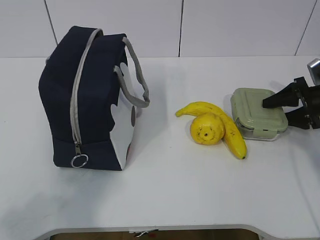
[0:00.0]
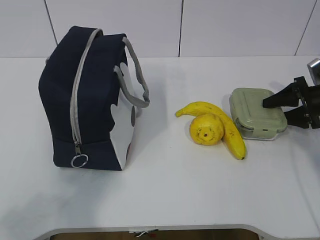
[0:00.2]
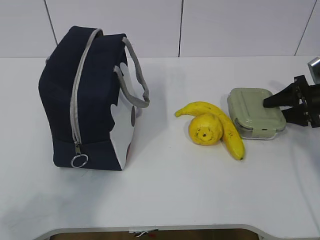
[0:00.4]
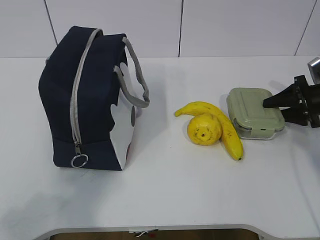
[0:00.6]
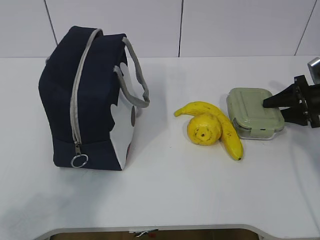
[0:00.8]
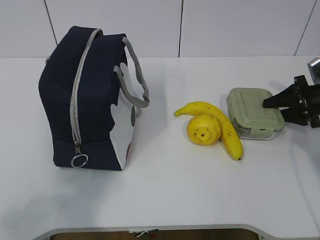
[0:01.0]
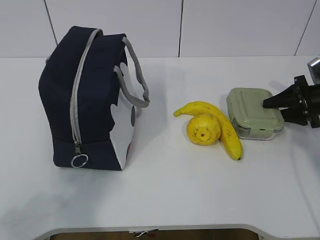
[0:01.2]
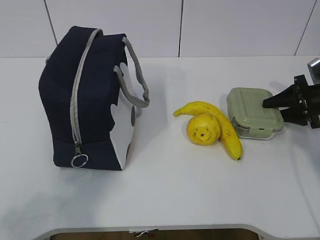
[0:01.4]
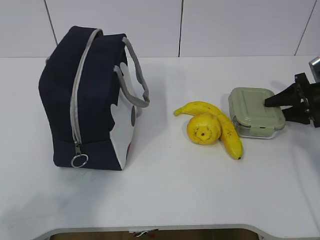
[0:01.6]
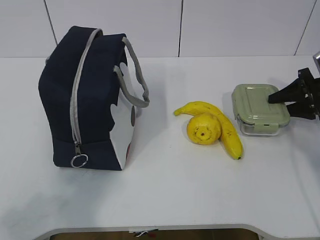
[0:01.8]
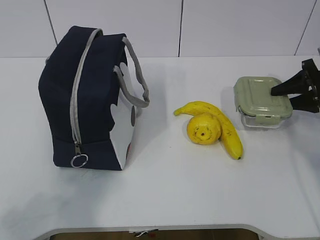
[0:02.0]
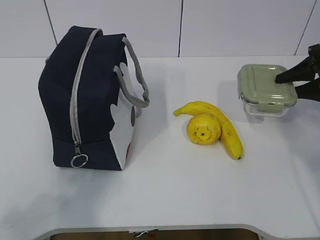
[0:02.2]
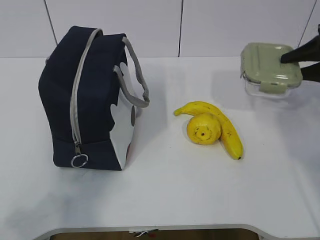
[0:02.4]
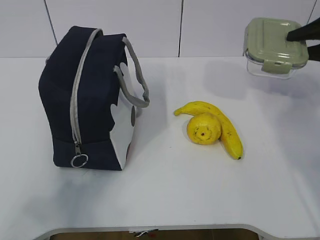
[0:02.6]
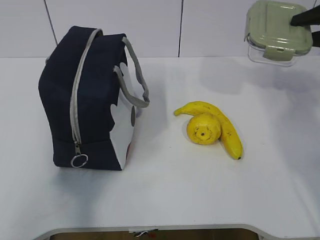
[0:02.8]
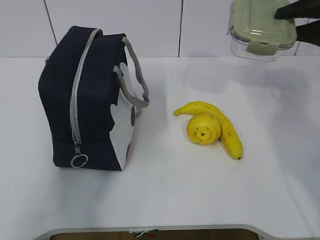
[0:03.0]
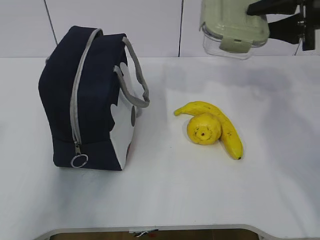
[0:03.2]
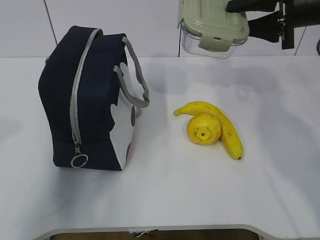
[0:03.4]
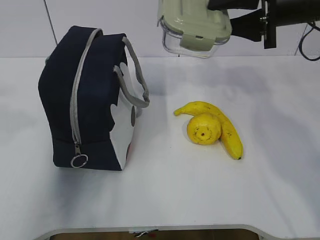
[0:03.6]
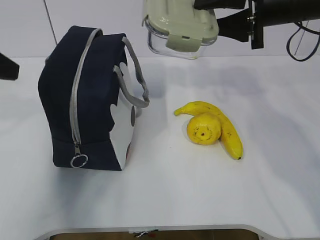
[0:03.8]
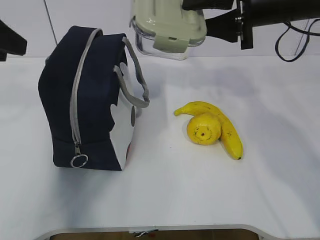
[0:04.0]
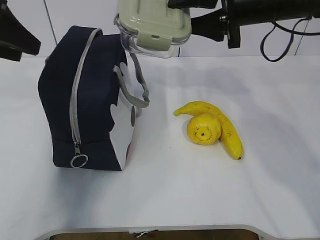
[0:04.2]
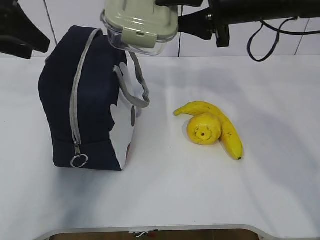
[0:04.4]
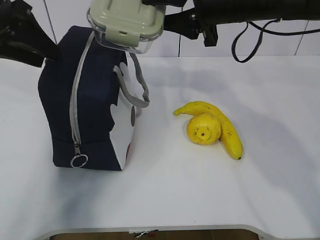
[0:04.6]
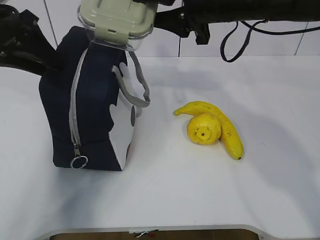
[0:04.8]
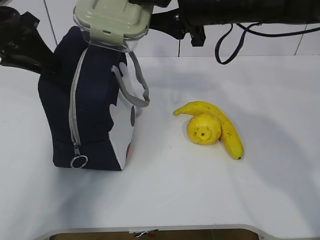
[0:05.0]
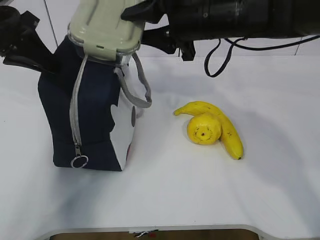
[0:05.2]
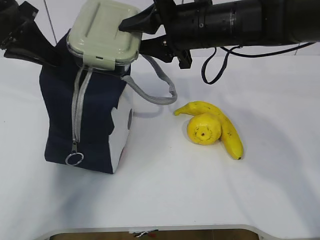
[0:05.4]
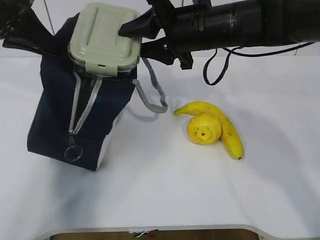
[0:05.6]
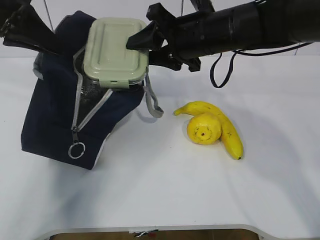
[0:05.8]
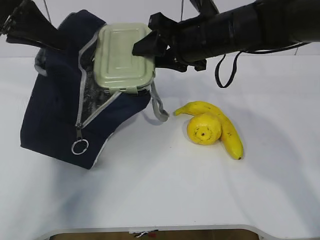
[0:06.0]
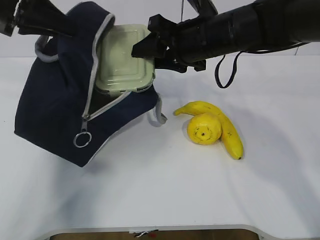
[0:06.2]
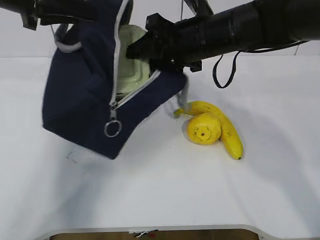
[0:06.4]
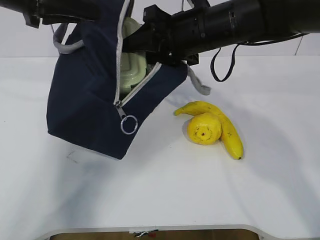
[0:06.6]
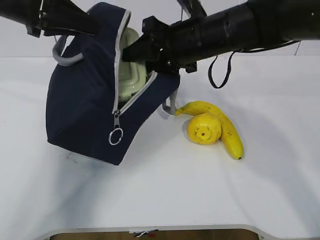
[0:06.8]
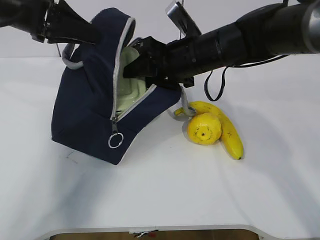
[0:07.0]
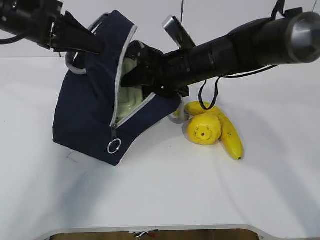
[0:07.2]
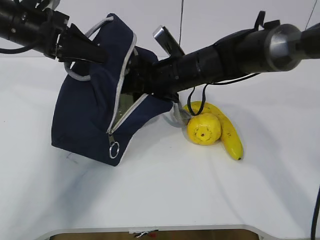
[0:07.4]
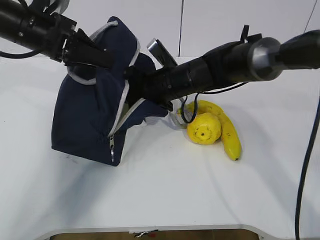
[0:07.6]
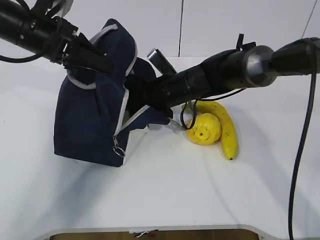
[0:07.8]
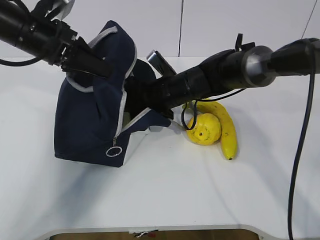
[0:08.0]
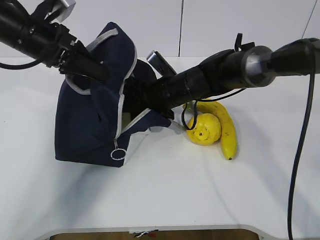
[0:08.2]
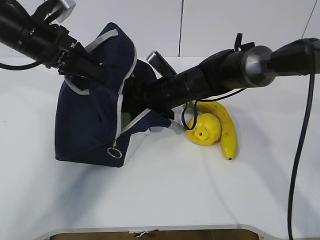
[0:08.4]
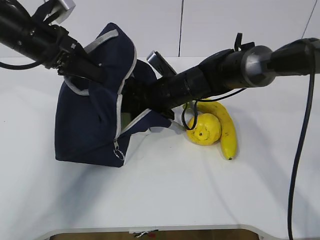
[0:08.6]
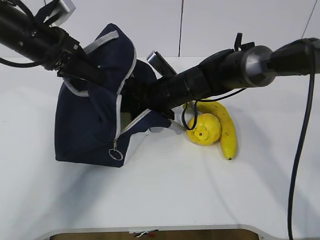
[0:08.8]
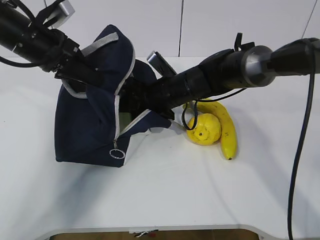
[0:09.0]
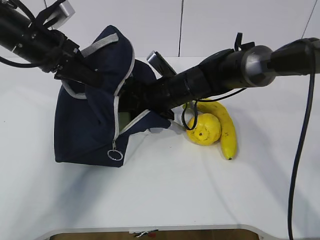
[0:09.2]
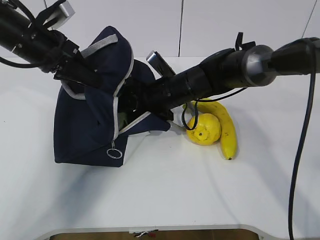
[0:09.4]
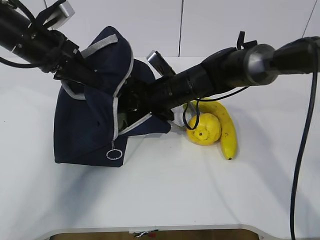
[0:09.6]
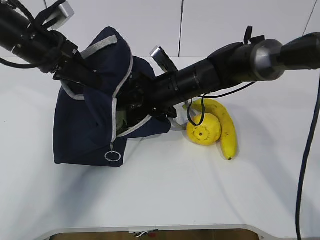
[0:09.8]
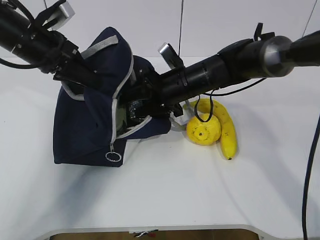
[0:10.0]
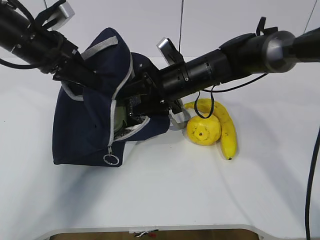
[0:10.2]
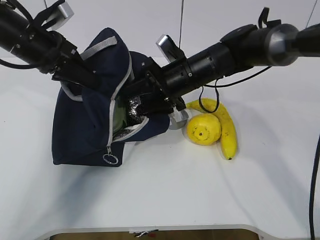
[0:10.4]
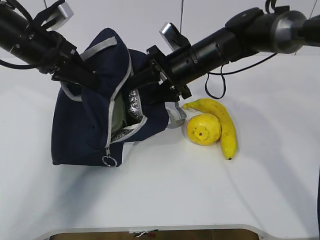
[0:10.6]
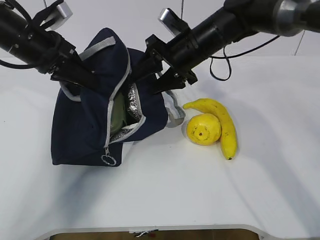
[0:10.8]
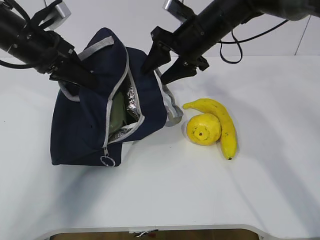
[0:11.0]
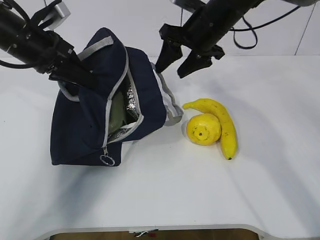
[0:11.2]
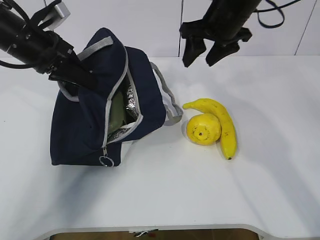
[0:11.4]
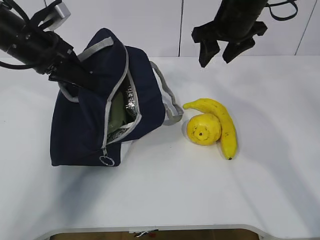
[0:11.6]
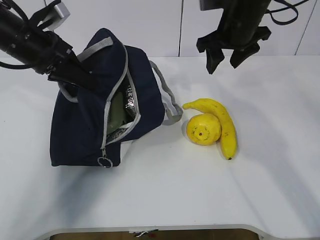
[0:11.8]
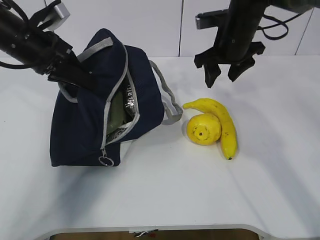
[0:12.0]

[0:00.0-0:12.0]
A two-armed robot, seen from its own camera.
Step, 0:03.0 to 0:06.2: Place it into the bag with your right hand.
Step, 0:06.4 to 0:09.6: Grab the banana with your right hand.
0:00.0 to 0:01.6: The two grippers keep their place.
0:01.6 to 0:03.0: The right gripper goes some 20 cm upward.
0:03.0 to 0:04.4: The right gripper travels to the left by about 20 cm; the left gripper travels forward by about 25 cm.
0:04.4 to 0:06.0: The right gripper shifts approximately 10 cm downward and to the left; the left gripper closes its fingers.
0:06.0 to 0:07.6: The right gripper moves downward, about 10 cm; the left gripper heads downward, covering roughly 5 cm.
0:07.6 to 0:09.0: The grippers move only a little.
0:09.0 to 0:10.4: The right gripper moves about 5 cm.
0:10.4 to 0:12.0: The right gripper travels to the right and upward by some 10 cm.

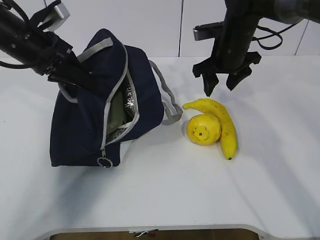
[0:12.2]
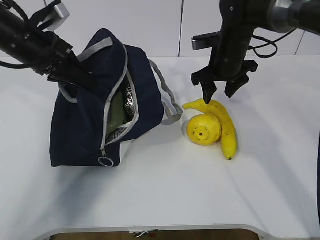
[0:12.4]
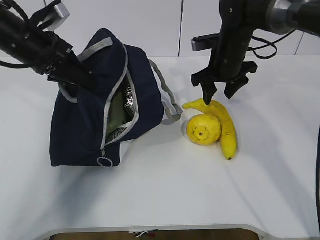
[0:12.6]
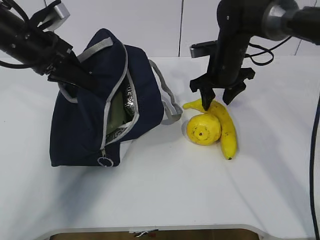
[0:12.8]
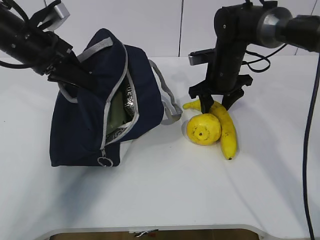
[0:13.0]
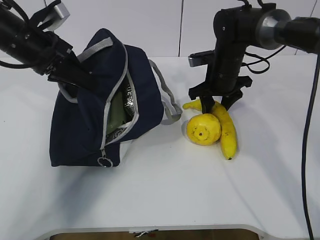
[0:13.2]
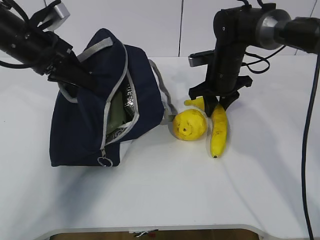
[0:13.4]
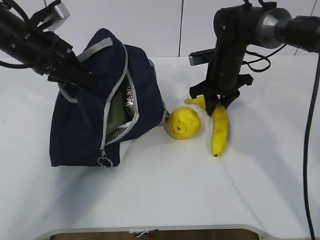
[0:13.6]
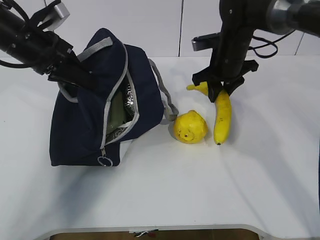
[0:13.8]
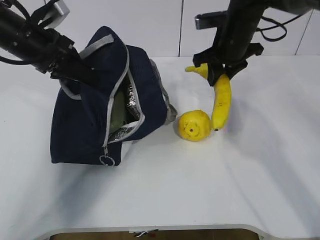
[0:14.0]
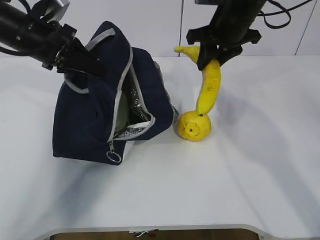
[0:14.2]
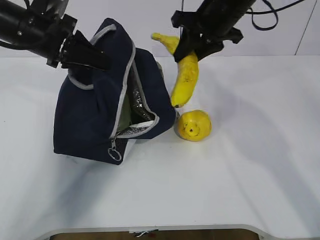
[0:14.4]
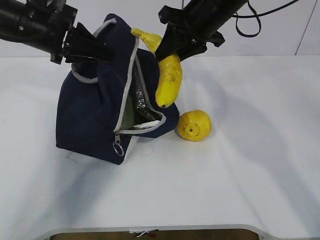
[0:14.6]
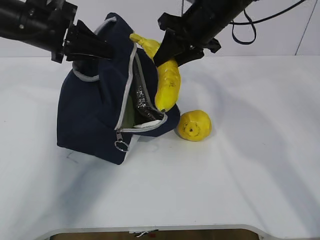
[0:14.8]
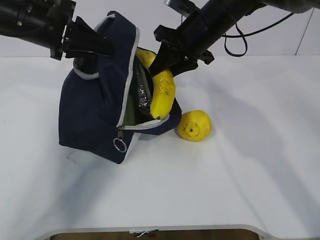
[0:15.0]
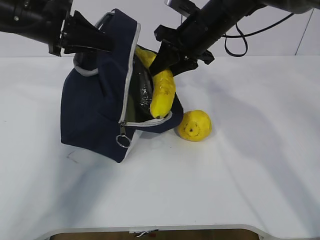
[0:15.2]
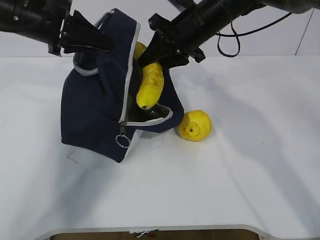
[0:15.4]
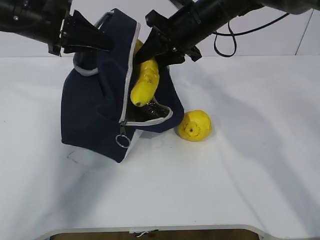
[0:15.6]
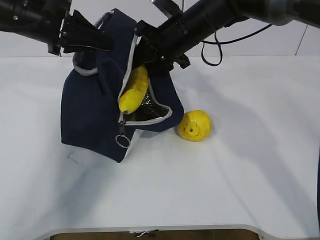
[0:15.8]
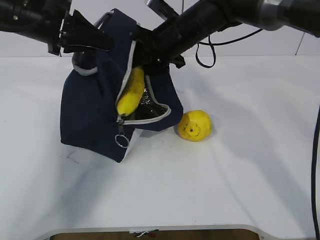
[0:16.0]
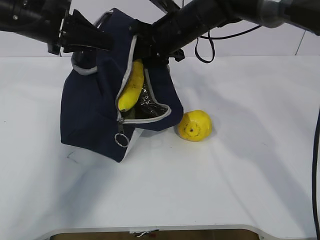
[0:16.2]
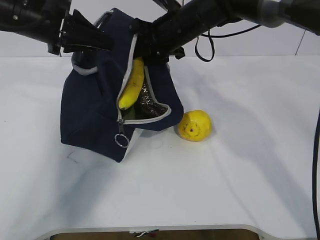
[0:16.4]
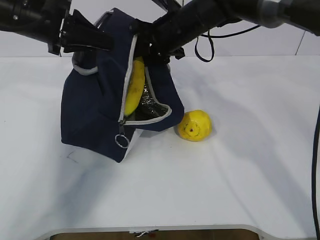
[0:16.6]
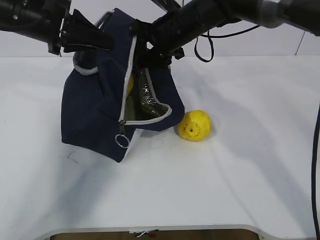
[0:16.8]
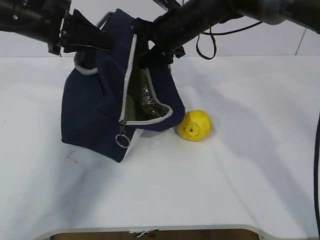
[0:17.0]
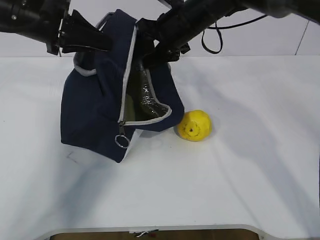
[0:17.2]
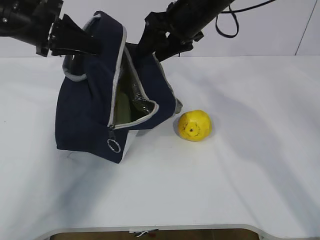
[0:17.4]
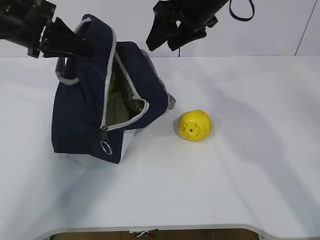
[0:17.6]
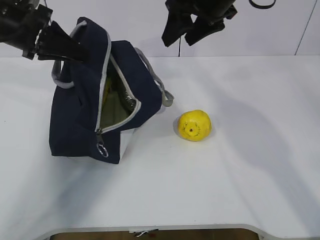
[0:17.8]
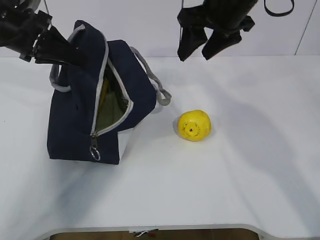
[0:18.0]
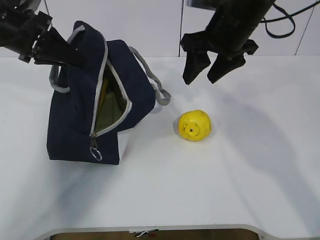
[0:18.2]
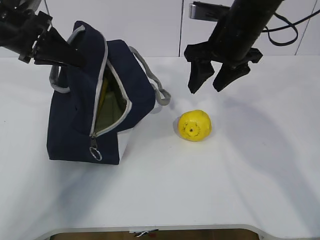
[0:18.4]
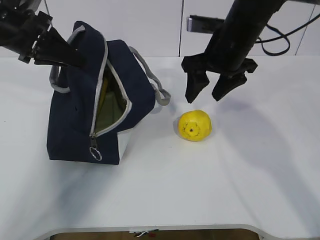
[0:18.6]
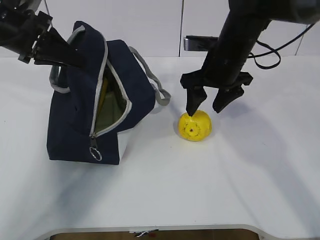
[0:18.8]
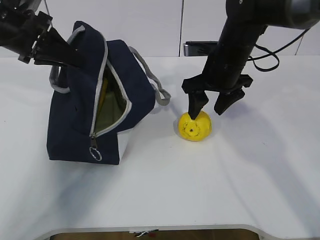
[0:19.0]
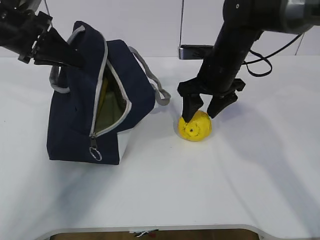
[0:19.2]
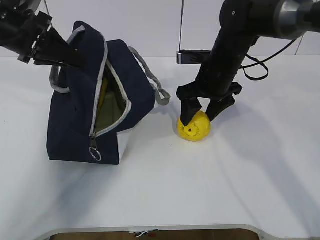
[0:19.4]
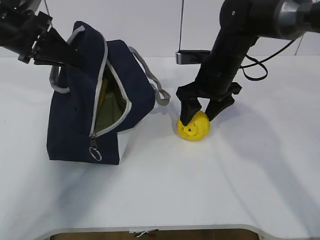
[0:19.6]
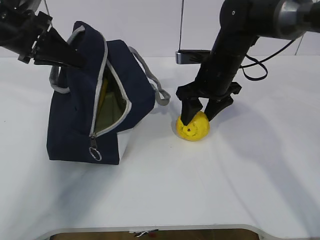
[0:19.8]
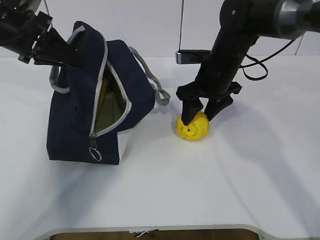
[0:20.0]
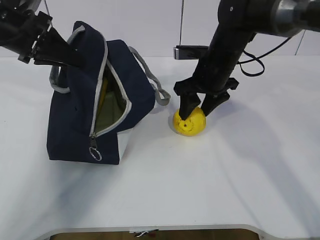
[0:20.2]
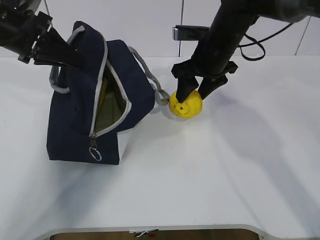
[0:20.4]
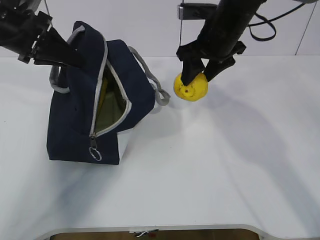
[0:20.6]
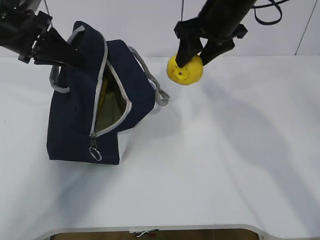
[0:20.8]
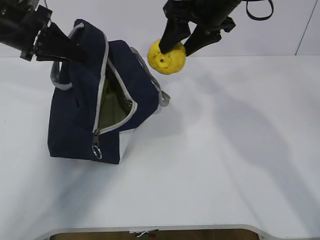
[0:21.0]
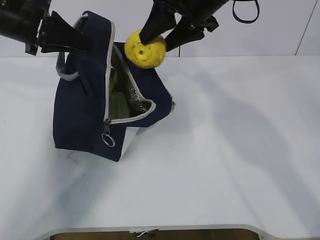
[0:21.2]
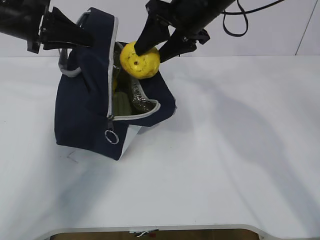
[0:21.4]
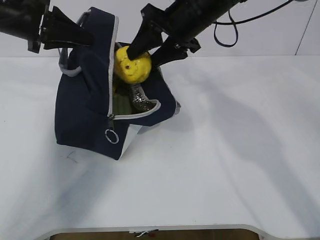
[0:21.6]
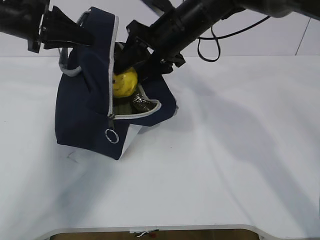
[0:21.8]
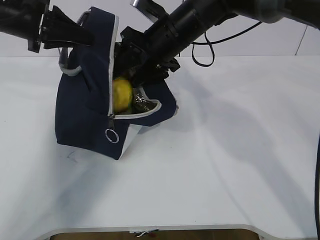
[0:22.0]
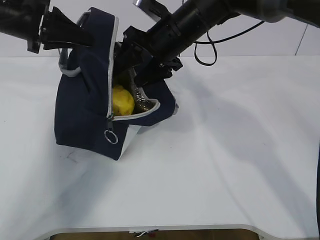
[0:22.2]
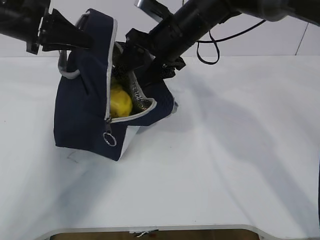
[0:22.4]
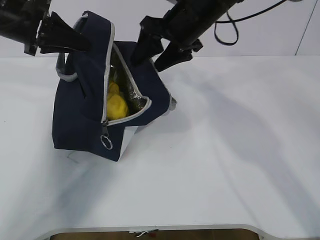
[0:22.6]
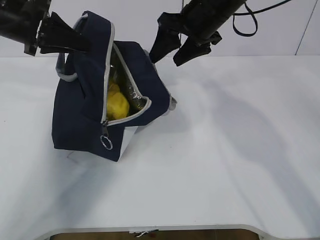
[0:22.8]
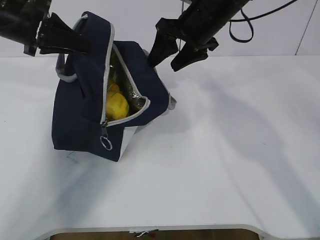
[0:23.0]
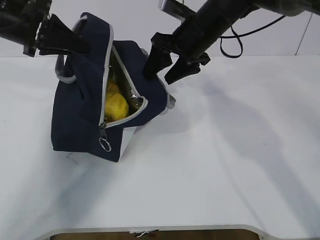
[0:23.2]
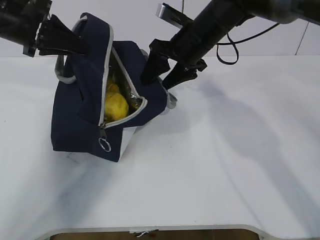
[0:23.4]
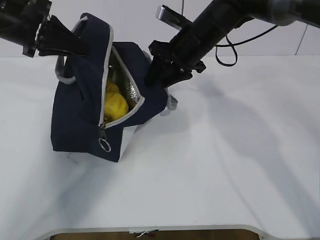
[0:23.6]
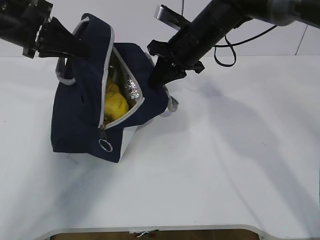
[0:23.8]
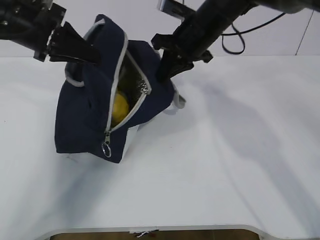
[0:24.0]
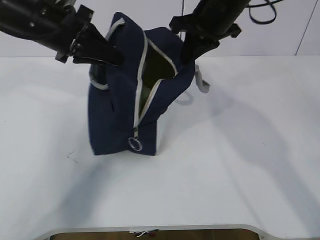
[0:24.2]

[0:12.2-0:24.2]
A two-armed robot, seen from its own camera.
Step, 0:12.8 to 0:15.0: Grab the pear with your right hand.
Step, 0:17.2 to 0:18.2: Grab the lunch bag with your right hand.
Step, 0:18.4 to 0:20.8: Move the lunch bag to the right.
0:12.2 to 0:13.8: The right gripper closes.
0:13.8 to 0:15.2: The right gripper goes some 10 cm upward and to the left.
0:15.2 to 0:16.6: There are only small adjustments of the grippers.
0:16.6 to 0:18.2: The right gripper heads backward and to the right, covering about 10 cm.
0:18.2 to 0:19.8: The right gripper travels downward by some 10 cm.
0:19.8 to 0:21.2: The right gripper moves upward, some 15 cm.
0:22.6 to 0:24.2: The left gripper moves to the right, approximately 5 cm; the right gripper closes its fingers.
